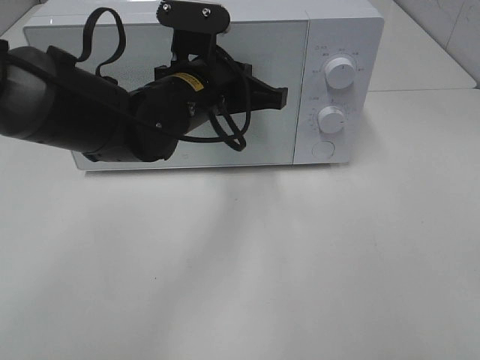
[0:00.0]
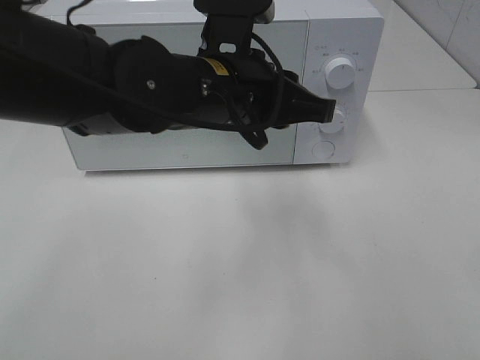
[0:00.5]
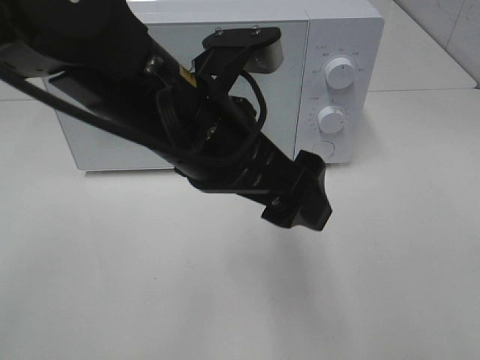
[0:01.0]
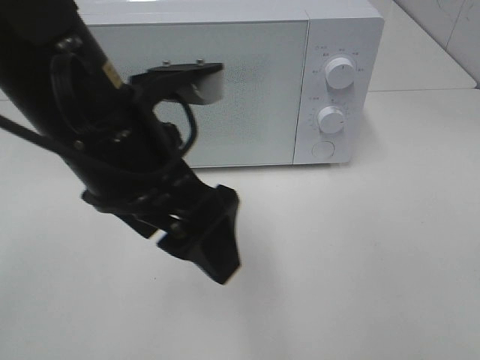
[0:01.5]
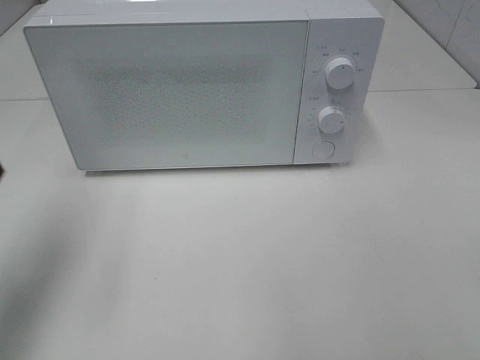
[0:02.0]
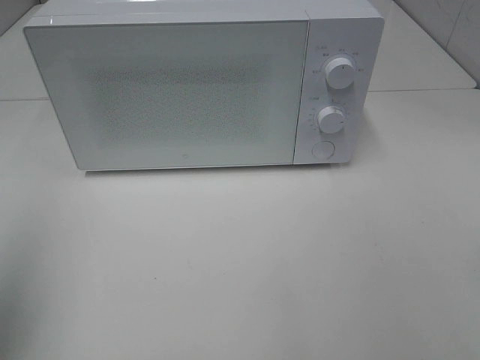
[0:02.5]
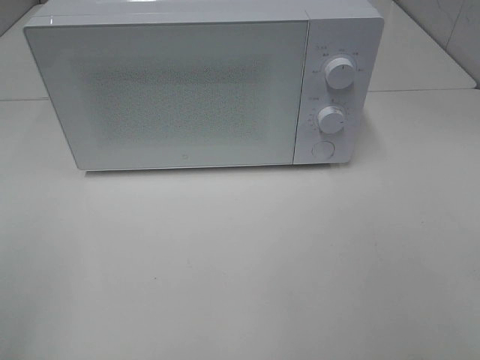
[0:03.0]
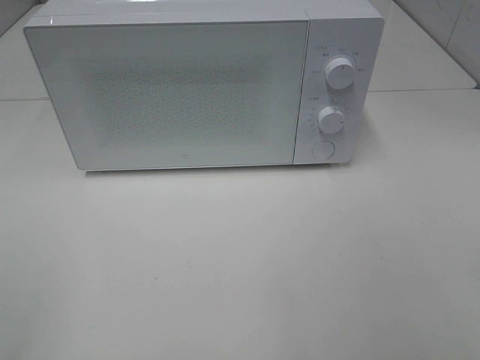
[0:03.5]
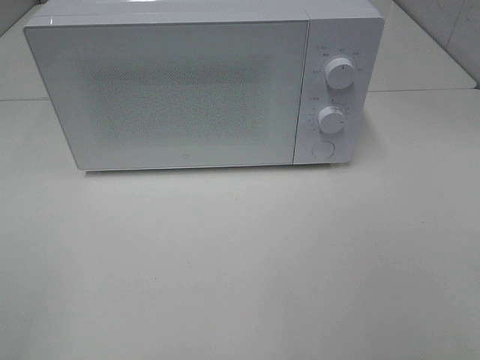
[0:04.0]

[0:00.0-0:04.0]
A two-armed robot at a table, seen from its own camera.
Task of the whole recording: Heat the burger.
0:00.0 to 0:02.0: The left gripper moves to the left, backward and upward, approximately 30 cm, and opens.
0:02.0 to 0:04.0: The left gripper heads backward, covering some 20 cm.

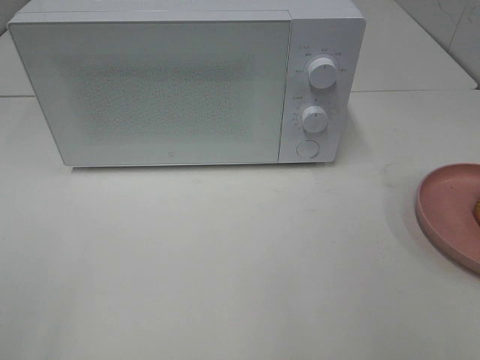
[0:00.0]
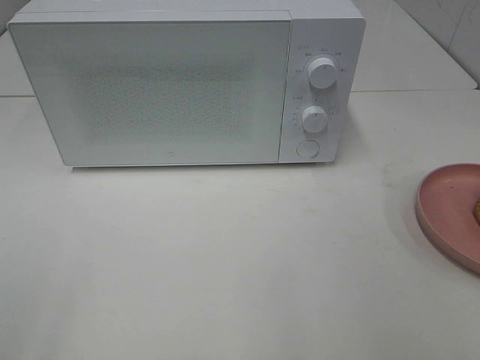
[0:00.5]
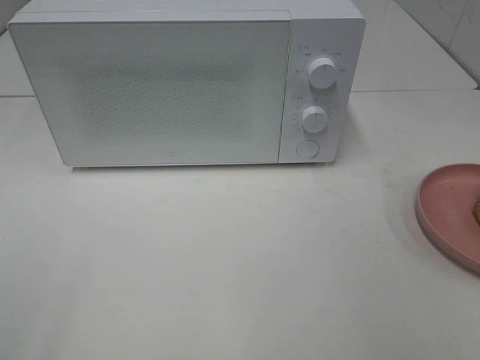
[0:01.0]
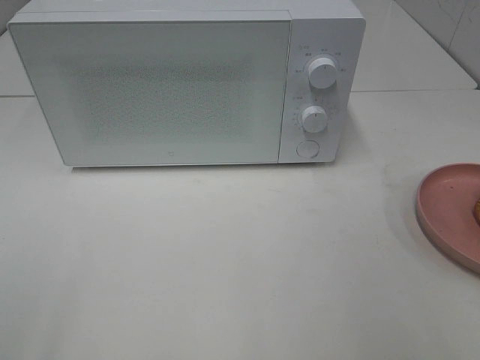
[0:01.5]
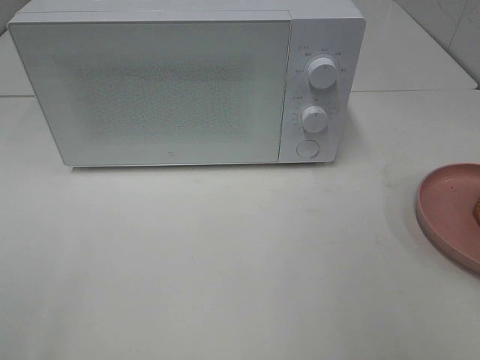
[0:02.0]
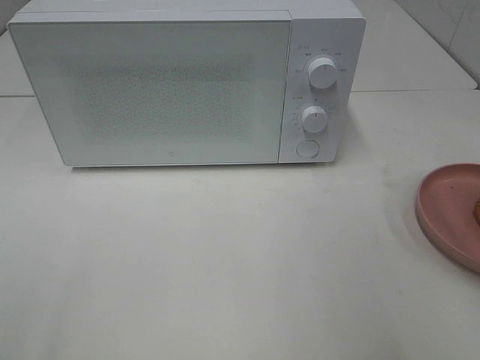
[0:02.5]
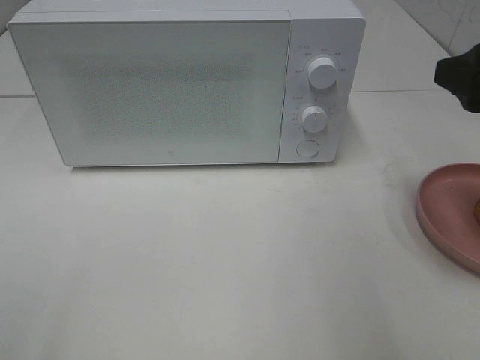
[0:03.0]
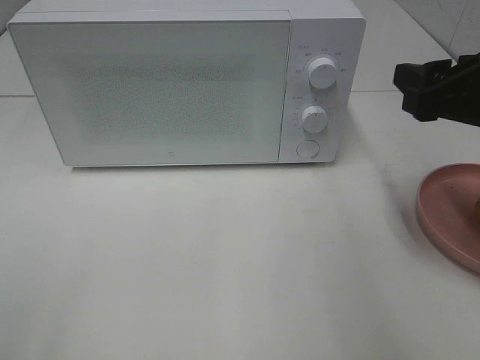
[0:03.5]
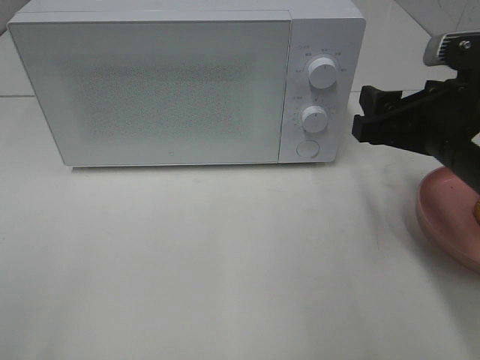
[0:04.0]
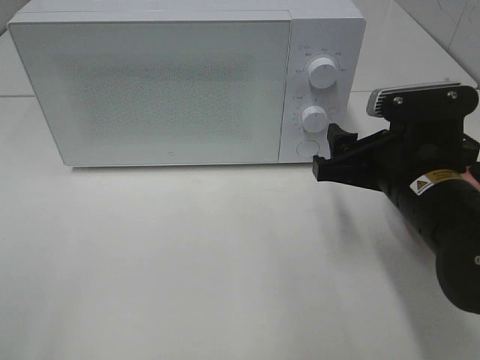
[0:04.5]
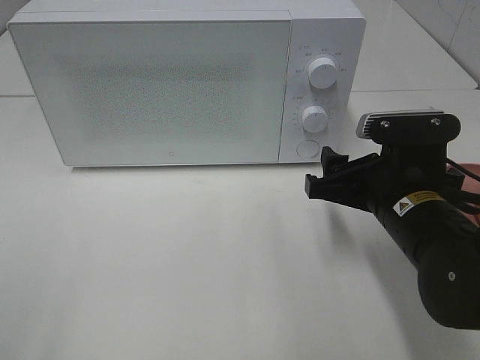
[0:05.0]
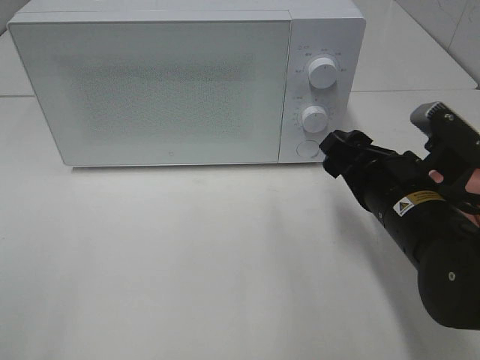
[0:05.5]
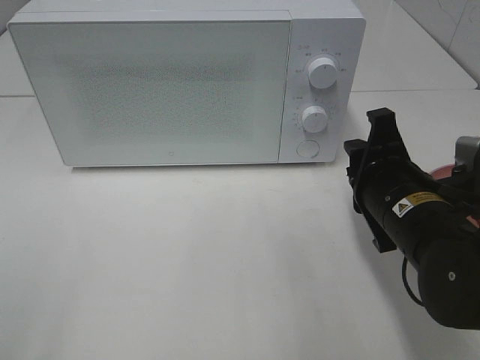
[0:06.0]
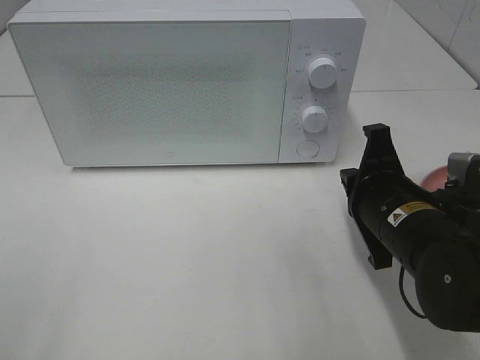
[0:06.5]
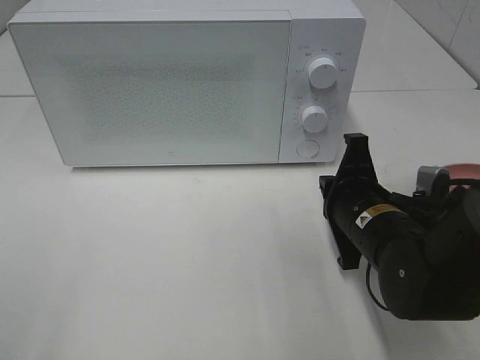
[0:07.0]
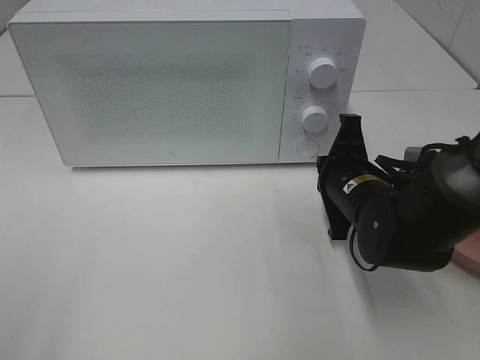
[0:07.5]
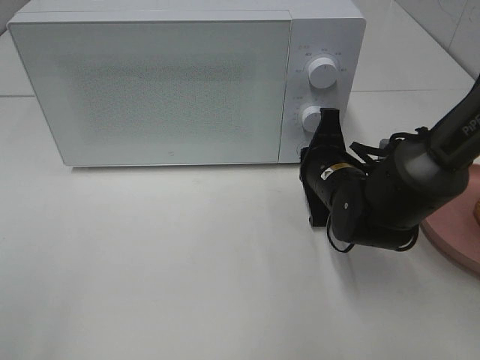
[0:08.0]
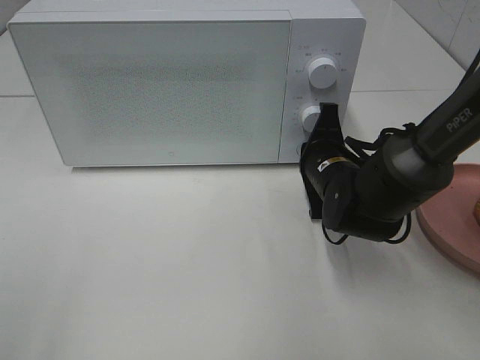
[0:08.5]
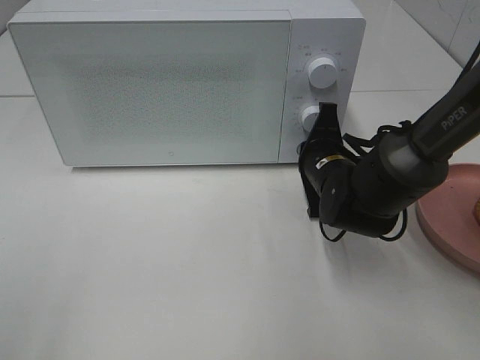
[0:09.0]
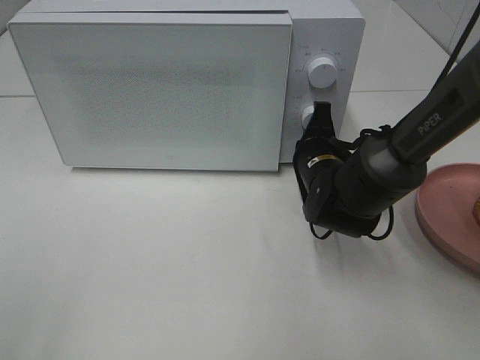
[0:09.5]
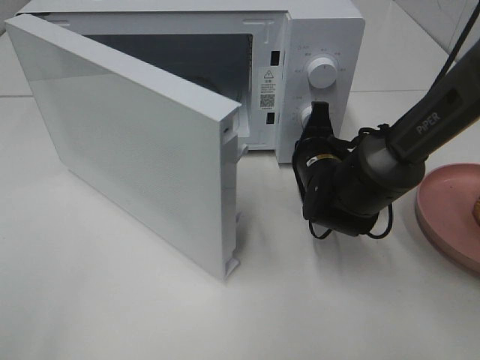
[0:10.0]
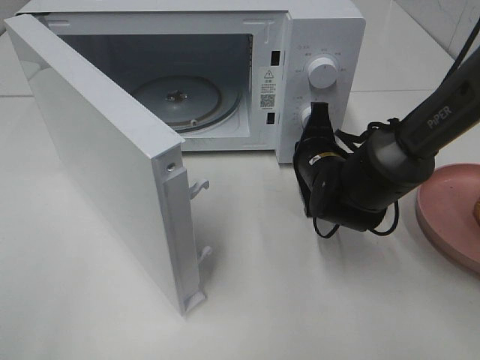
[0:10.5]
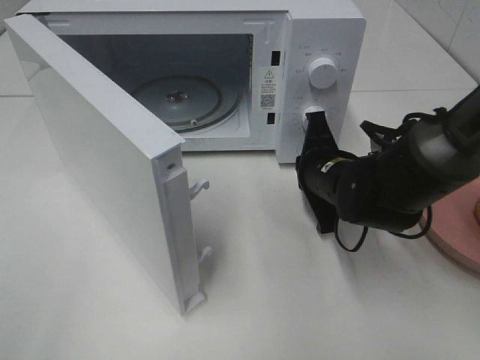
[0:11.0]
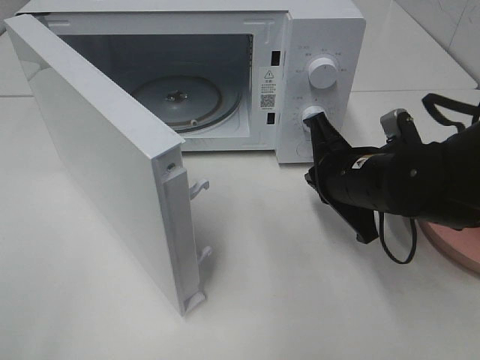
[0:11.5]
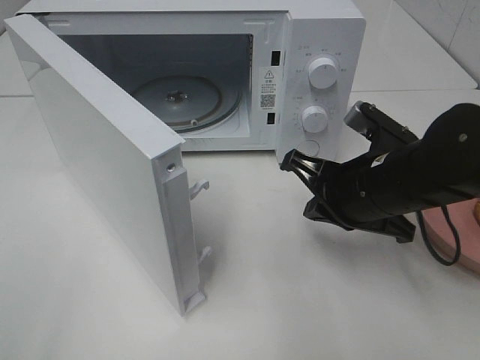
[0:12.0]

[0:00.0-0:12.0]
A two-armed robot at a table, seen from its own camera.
Task of the whole recording: Heat the burger.
Step, 0:00.0 to 0:10.5: Right hand: press the switch.
0:02.0 to 0:04.0: The right gripper shifts roughly 20 cm forward, downward and to the left.
0:04.0 to 0:06.0: The right gripper shifts roughly 5 cm downward, and closes up.
0:06.0 to 0:08.0: The right gripper moves forward and downward, some 10 cm, and closes its fingers.
0:10.0 to 0:12.0: The right gripper moves backward and upward, roughly 10 cm.

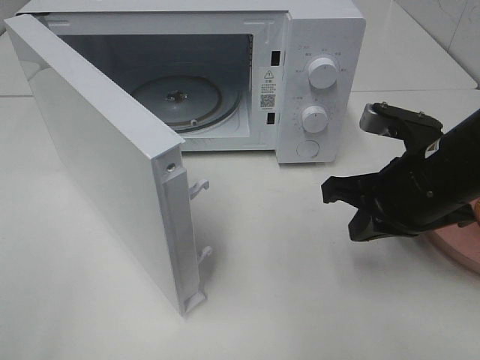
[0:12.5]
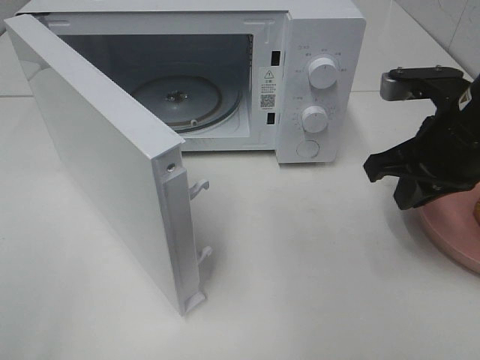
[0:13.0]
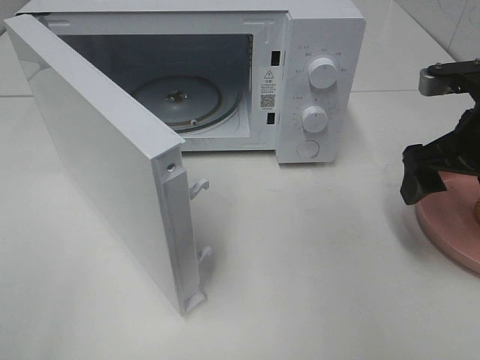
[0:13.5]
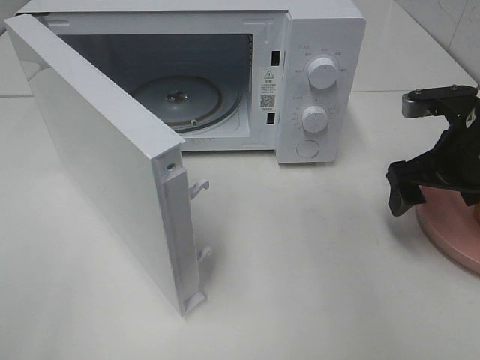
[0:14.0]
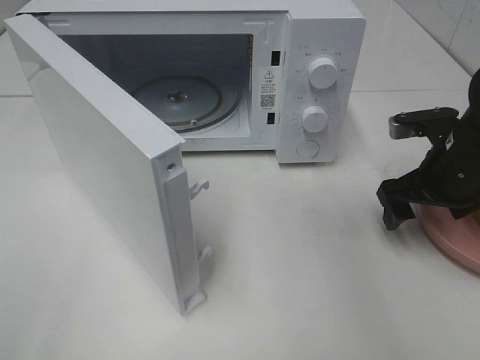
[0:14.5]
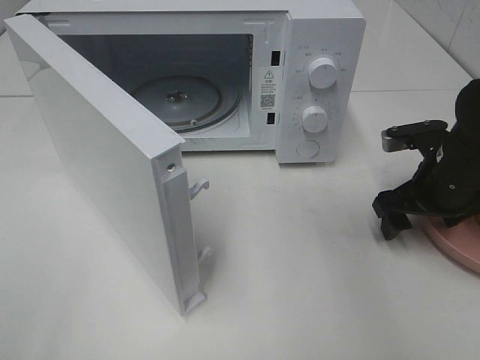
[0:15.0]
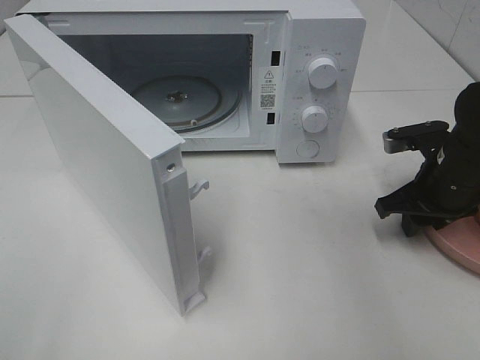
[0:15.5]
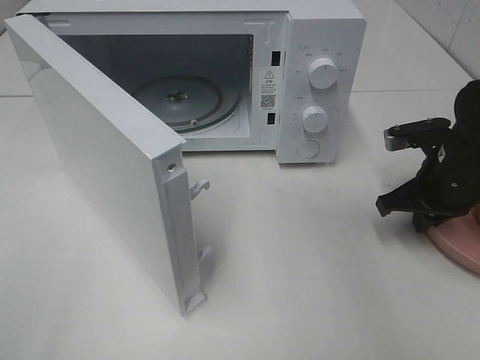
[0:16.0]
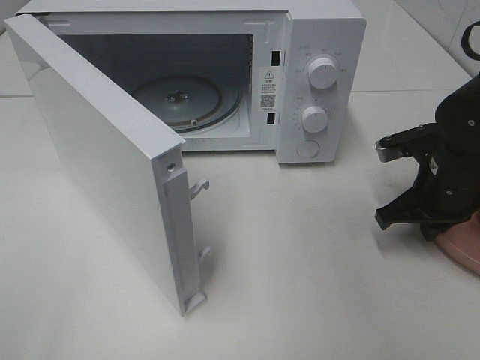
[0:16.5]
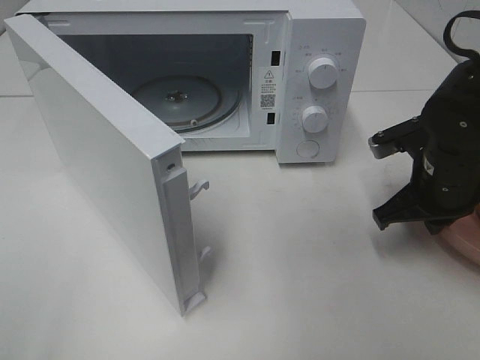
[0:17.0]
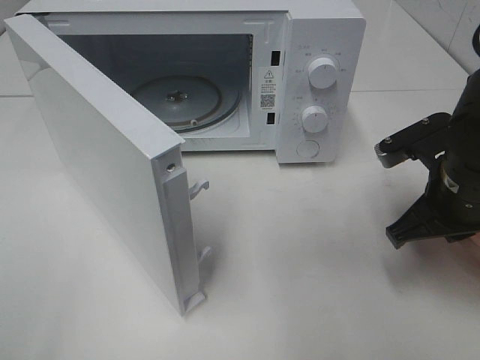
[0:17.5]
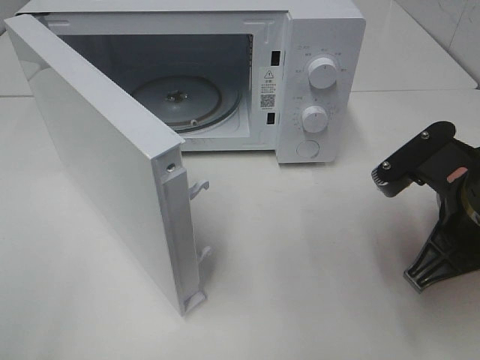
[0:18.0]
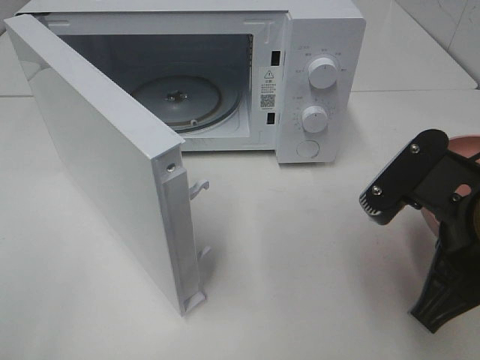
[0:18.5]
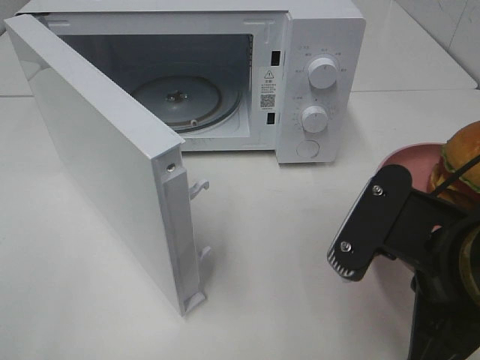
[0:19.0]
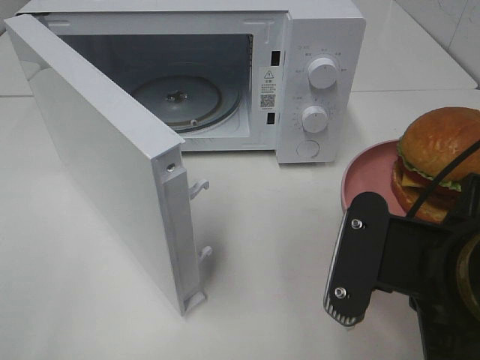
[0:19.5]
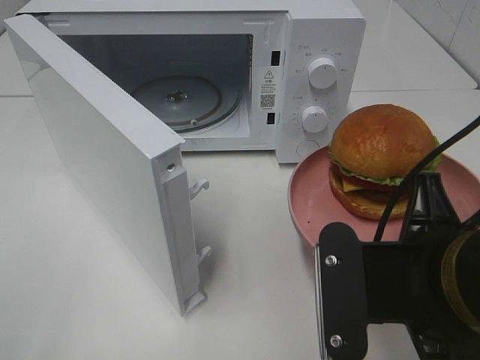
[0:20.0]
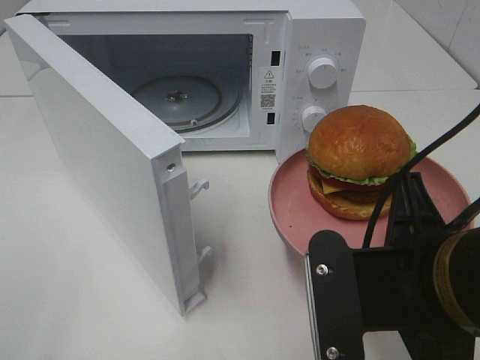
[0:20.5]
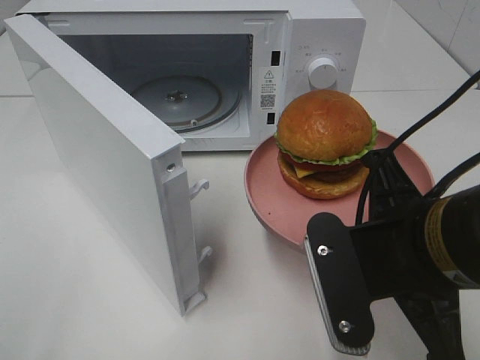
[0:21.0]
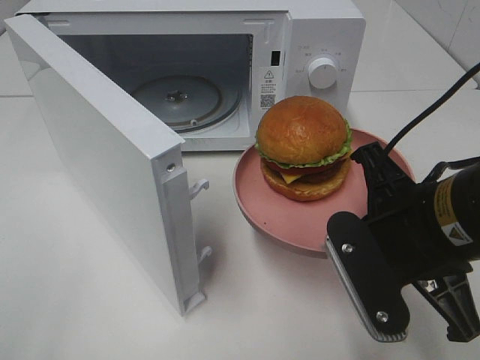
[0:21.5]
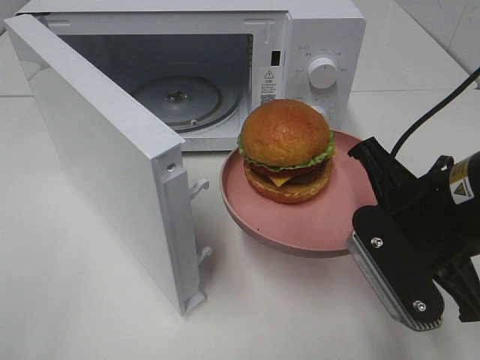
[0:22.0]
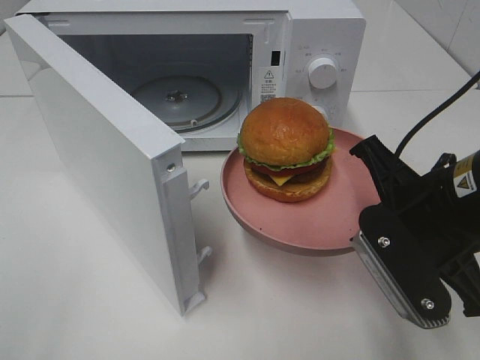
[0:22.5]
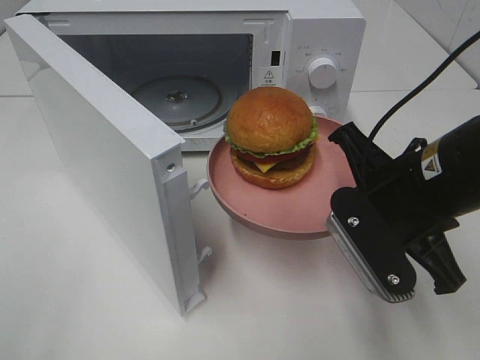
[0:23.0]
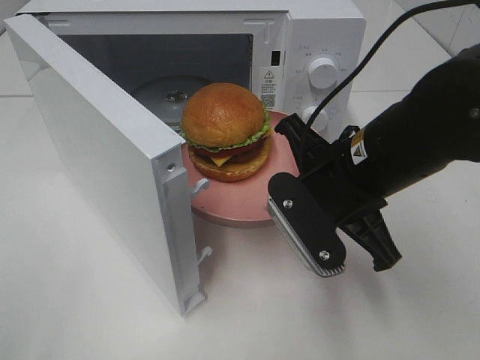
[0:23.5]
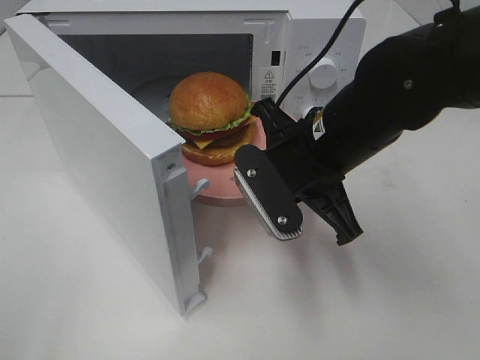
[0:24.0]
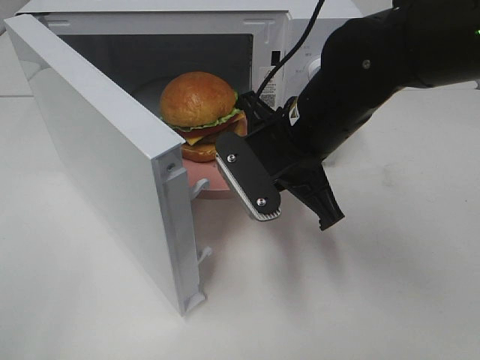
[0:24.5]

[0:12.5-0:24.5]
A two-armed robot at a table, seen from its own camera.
Task of the whole recording: Heat the burger.
Step, 0:12.5 to 0:15.5: Right hand: grab the plate with the hamburger.
0:12.5 to 0:14.5: The right gripper goes some 10 cm to the right and forward, and opens.
0:14.5 to 0:16.5: The right gripper closes up.
0:16.5 to 0:18.5: The right gripper shifts approximately 20 cm backward, upward and to the left.
0:18.5 to 0:20.5: The right gripper changes place by about 5 cm.
0:20.5 to 0:22.5: The right gripper travels forward by some 10 cm.
0:22.5 to 0:24.5: The right gripper goes about 15 cm to the left and forward.
